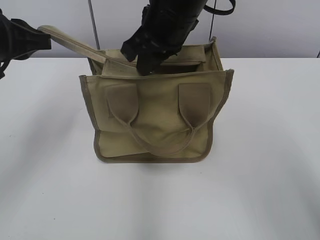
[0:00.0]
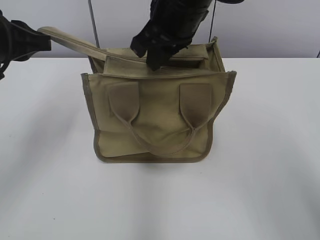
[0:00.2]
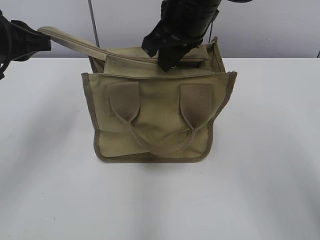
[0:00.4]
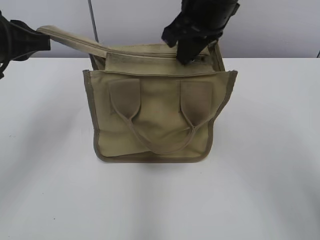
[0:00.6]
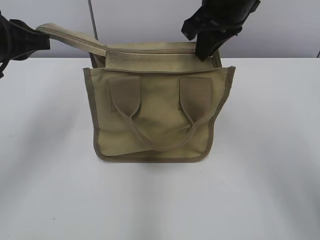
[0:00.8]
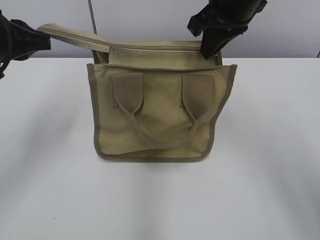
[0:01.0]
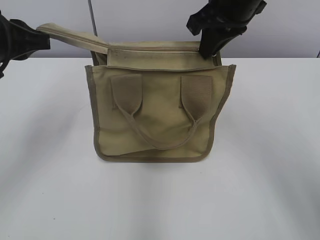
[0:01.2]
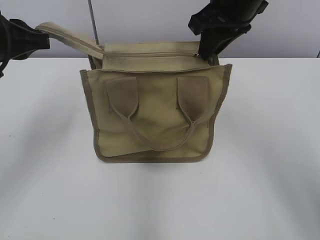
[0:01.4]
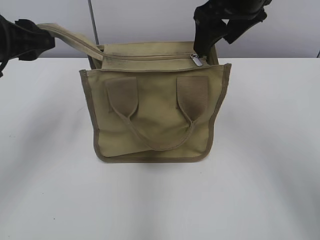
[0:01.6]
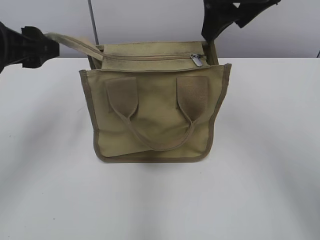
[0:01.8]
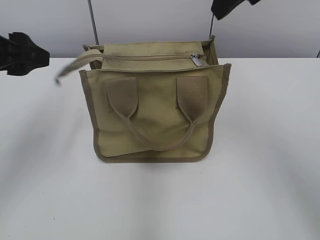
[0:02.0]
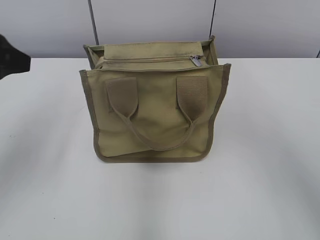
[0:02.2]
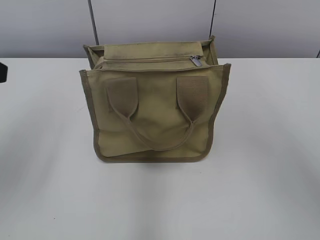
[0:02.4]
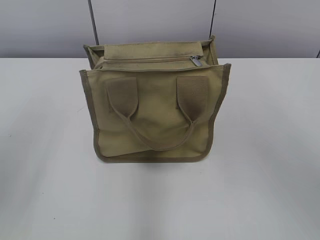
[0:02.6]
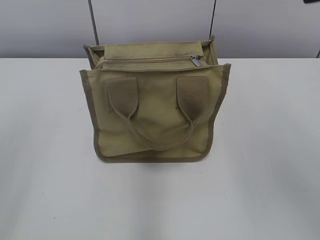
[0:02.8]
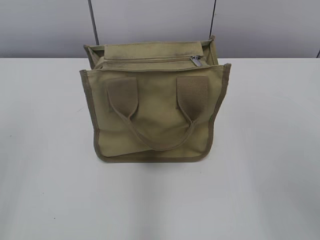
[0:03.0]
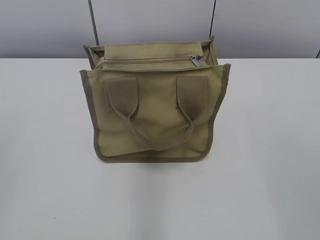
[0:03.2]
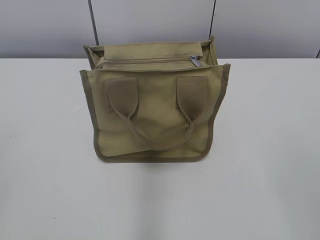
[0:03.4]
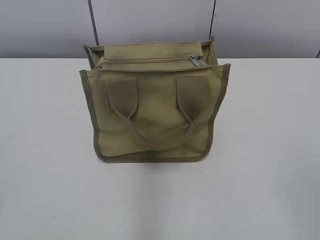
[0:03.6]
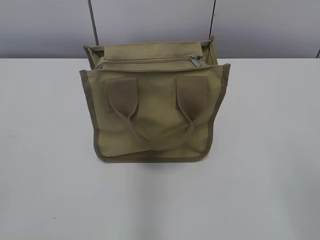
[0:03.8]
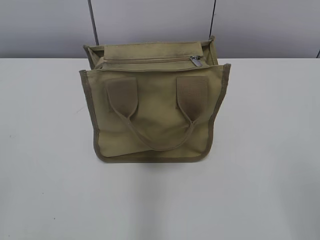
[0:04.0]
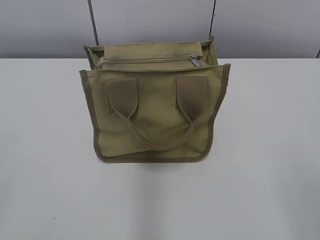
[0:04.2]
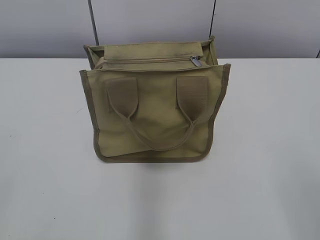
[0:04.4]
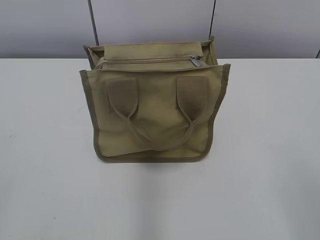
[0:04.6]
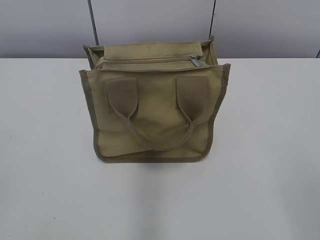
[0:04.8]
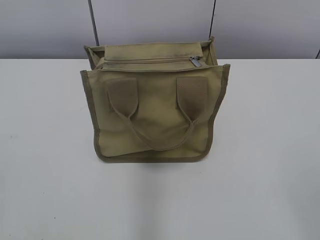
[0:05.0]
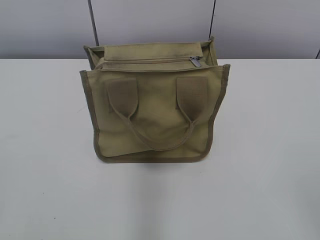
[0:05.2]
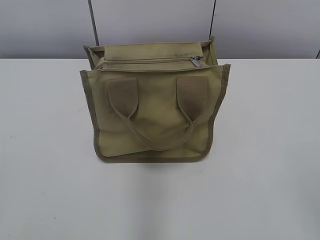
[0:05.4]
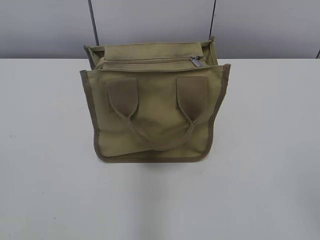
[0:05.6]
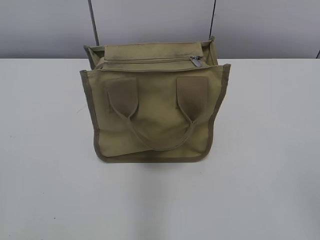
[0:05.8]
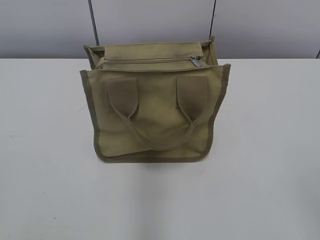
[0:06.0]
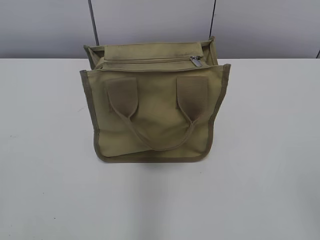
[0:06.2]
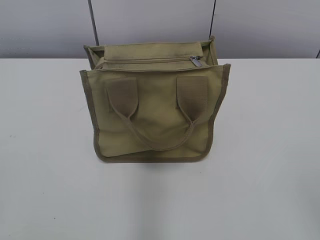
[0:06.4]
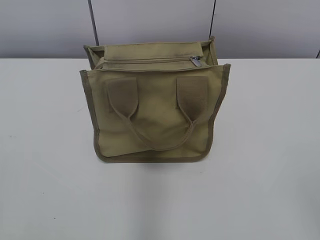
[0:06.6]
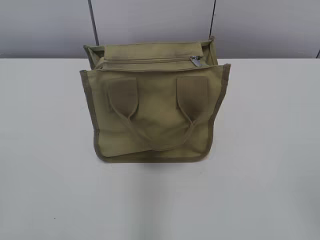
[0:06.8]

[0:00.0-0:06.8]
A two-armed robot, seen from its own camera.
Step, 0:01.6 to 0:01.8: Grab the zipper with your left hand.
0:00.0 to 0:01.4: The right gripper moves to the right, about 10 cm.
0:01.4 to 0:02.8: The right gripper travels backward, upward and to the right by approximately 25 cm, and opens, while the left gripper shifts approximately 15 cm backward, and opens.
0:05.4 to 0:06.8: Both grippers stay about where they are.

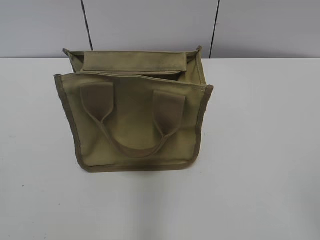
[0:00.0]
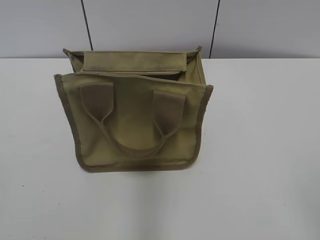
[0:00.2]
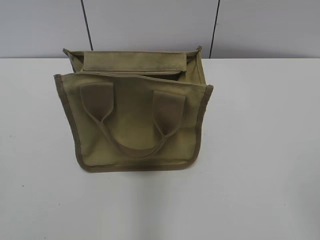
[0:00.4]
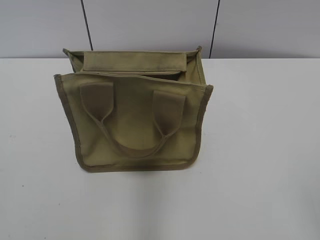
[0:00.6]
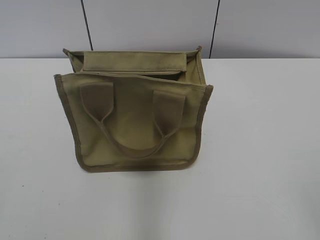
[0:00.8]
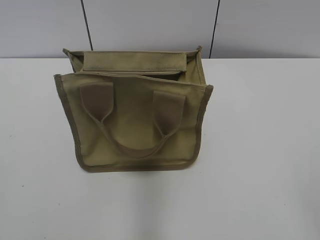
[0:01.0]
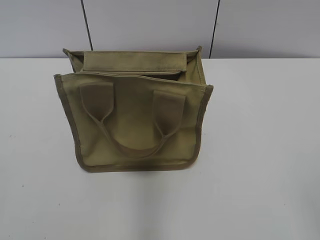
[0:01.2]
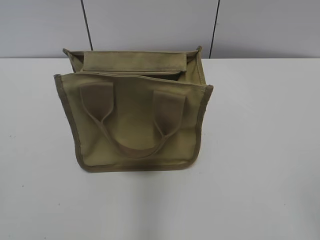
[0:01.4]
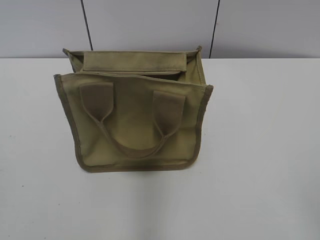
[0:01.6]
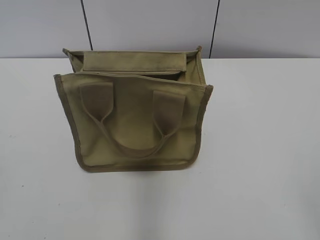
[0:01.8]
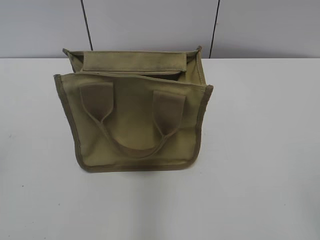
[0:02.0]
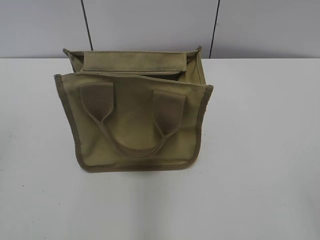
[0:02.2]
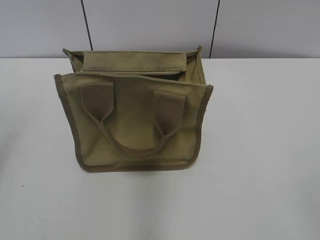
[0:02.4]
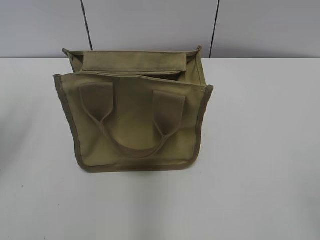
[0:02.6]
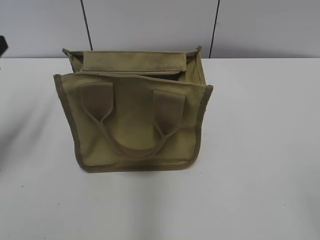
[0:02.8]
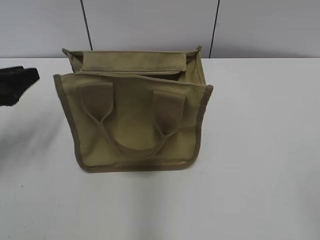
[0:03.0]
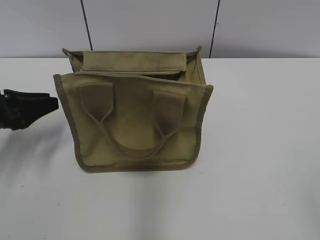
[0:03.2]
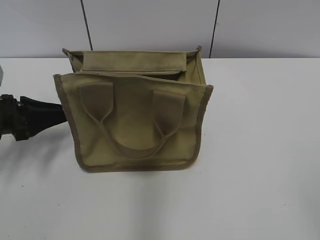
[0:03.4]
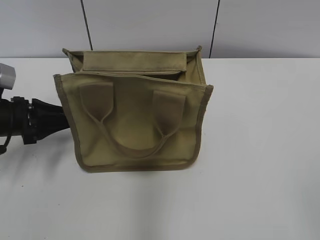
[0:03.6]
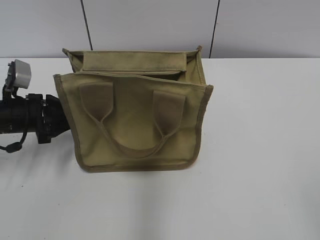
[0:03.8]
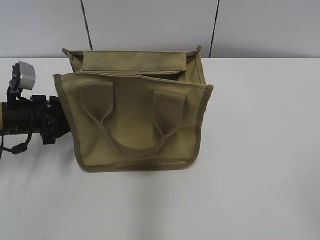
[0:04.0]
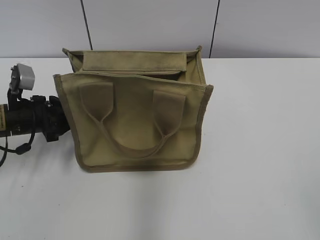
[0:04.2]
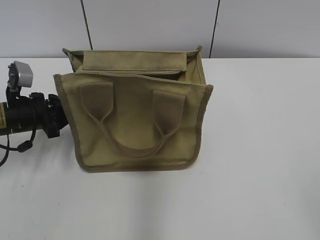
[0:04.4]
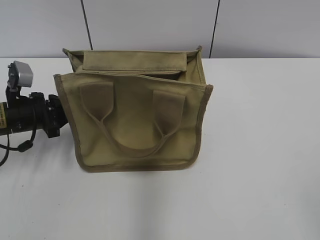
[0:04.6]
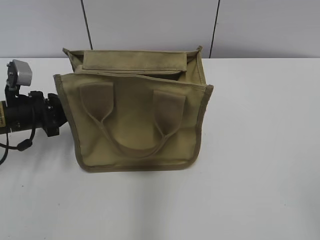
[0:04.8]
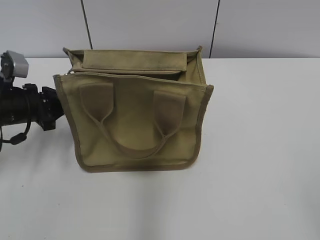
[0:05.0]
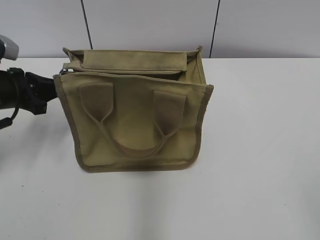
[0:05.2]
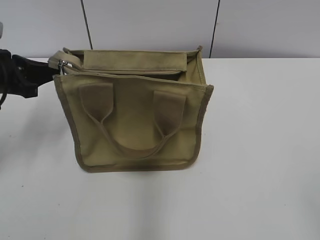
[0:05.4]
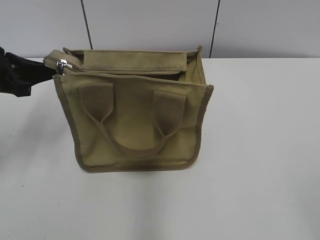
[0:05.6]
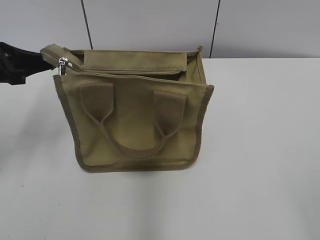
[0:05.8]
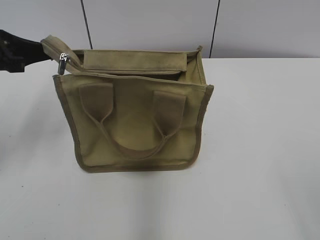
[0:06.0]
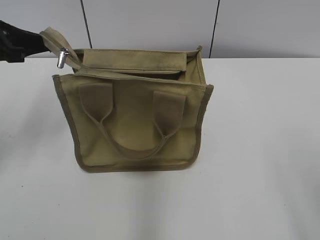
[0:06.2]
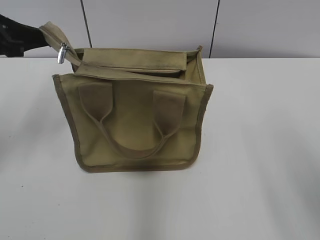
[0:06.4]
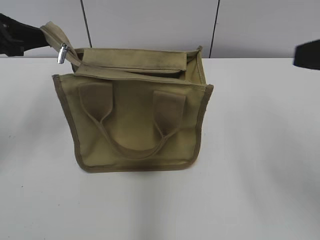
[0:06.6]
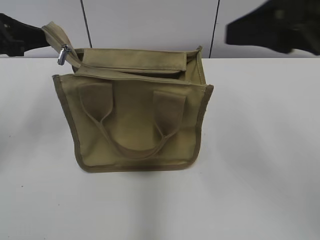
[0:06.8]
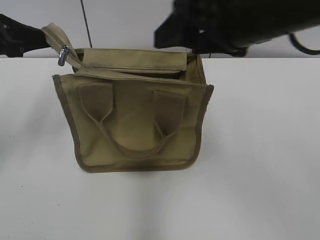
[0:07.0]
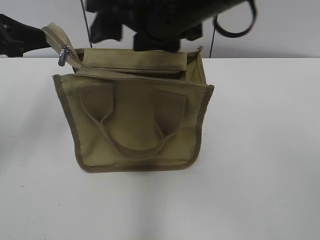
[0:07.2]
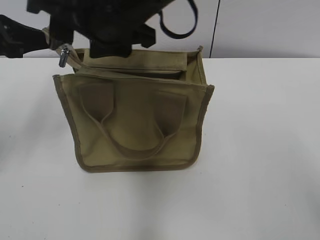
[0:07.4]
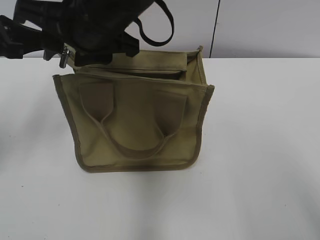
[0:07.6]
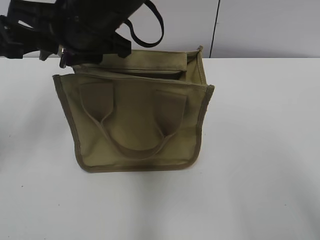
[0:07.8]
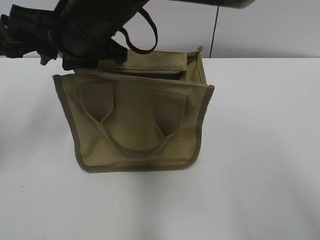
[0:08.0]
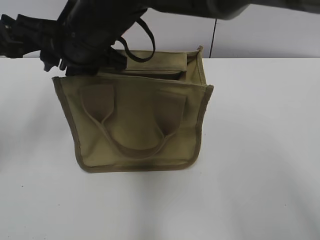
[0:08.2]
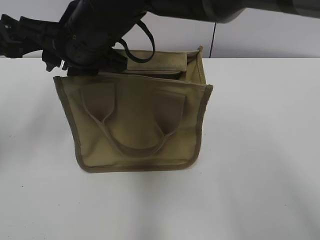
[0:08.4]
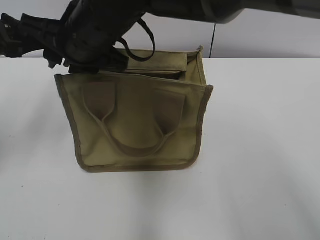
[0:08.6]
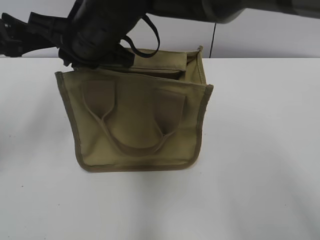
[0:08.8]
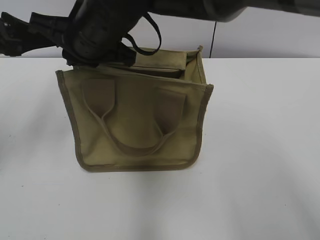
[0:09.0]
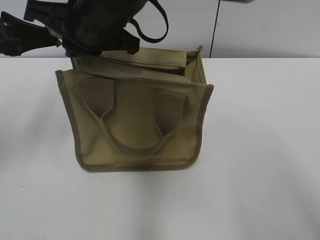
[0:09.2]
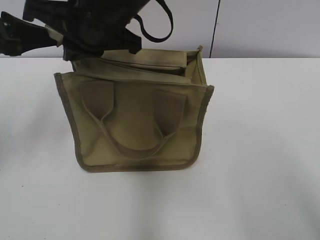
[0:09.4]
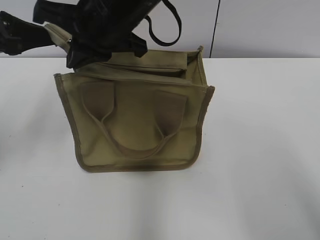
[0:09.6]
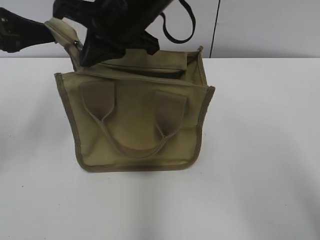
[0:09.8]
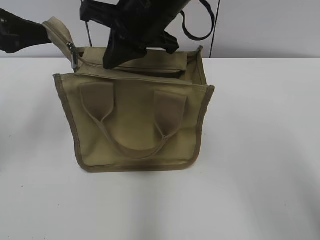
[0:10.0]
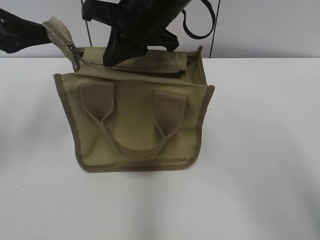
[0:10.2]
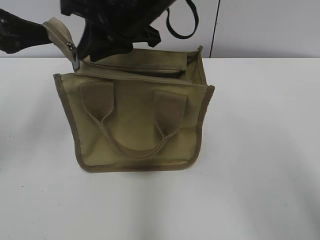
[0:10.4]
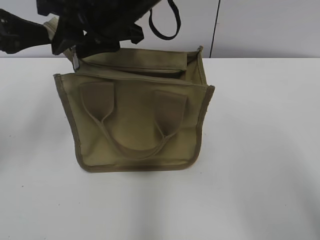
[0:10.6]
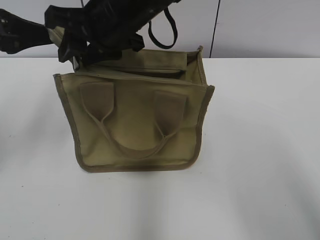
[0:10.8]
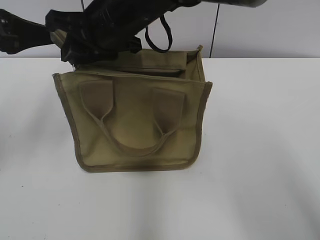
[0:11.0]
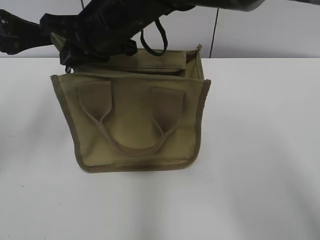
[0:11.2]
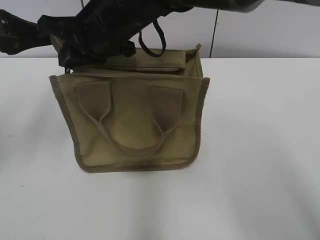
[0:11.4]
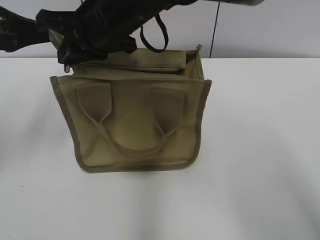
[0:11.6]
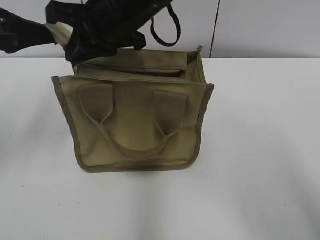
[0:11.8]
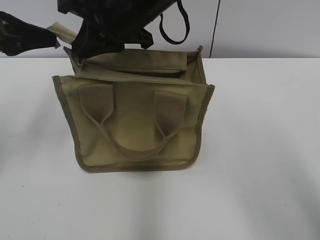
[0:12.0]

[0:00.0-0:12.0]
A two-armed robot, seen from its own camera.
0:01.6 to 0:03.0: The left gripper is displaced forward by about 30 cm.
0:03.0 to 0:04.4: The left gripper goes about 10 cm downward and forward, and closes its fingers.
0:04.4 to 0:06.0: The left gripper heads upward, covering about 15 cm.
0:06.0 to 0:07.6: The right gripper moves to the left and forward, approximately 40 cm, and closes.
0:07.6 to 0:09.0: The right gripper closes.
0:09.0 to 0:10.4: The right gripper shifts some 5 cm to the right.
0:10.4 to 0:12.0: The right gripper opens and closes again.

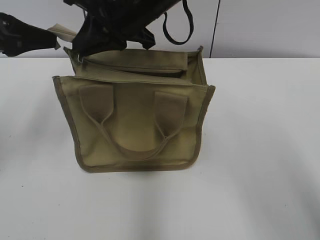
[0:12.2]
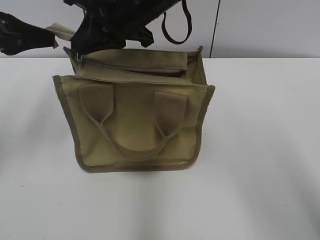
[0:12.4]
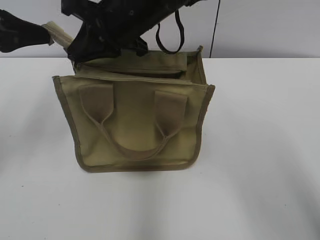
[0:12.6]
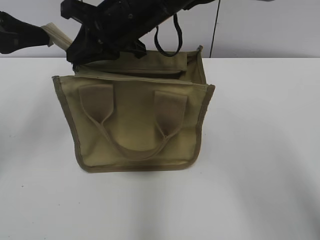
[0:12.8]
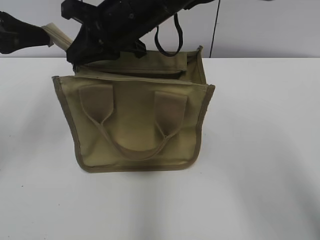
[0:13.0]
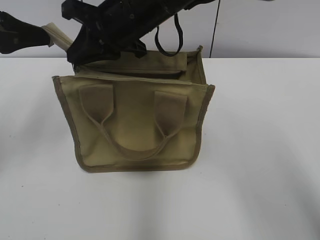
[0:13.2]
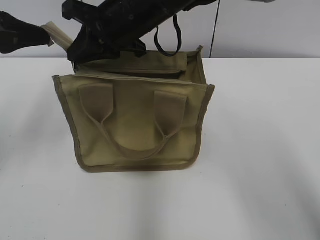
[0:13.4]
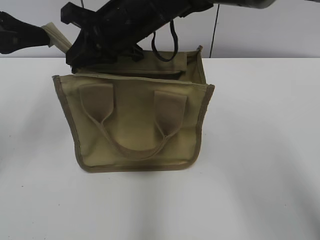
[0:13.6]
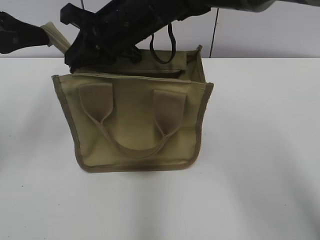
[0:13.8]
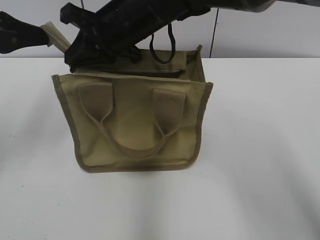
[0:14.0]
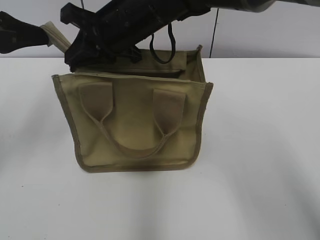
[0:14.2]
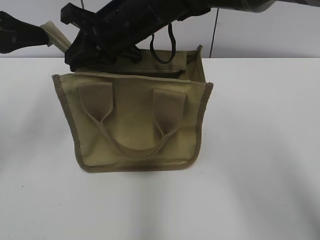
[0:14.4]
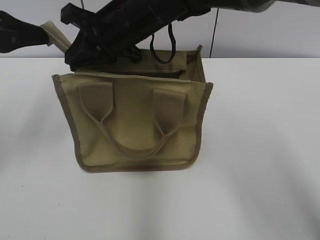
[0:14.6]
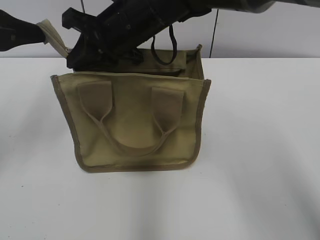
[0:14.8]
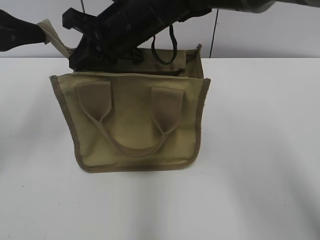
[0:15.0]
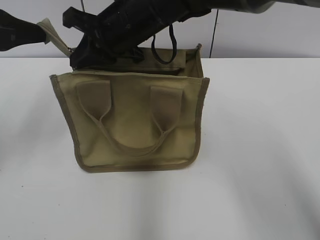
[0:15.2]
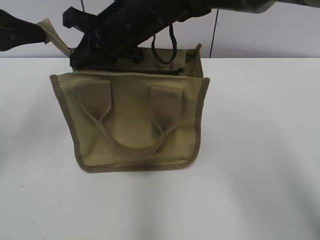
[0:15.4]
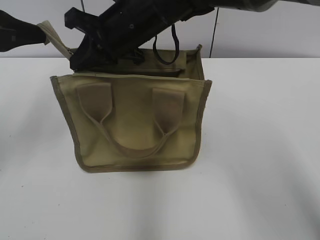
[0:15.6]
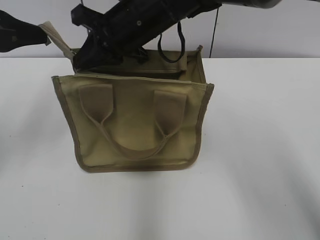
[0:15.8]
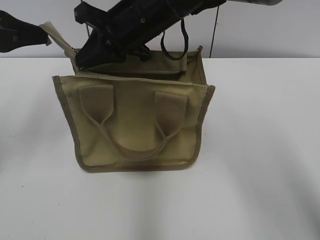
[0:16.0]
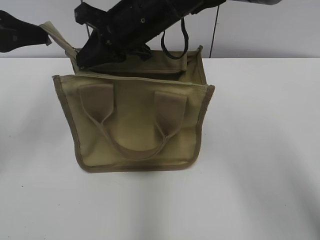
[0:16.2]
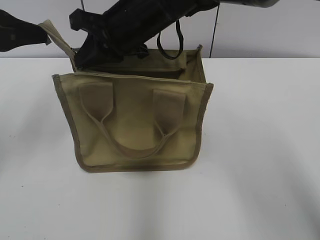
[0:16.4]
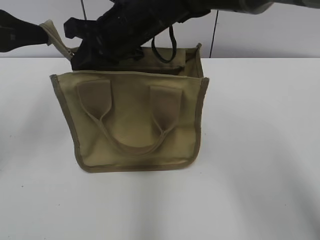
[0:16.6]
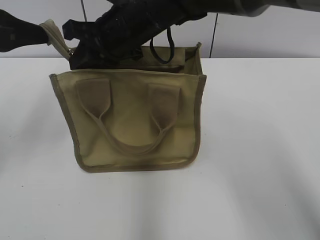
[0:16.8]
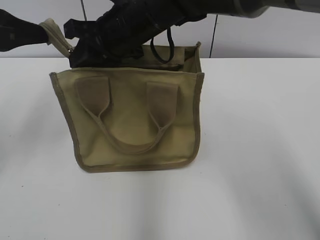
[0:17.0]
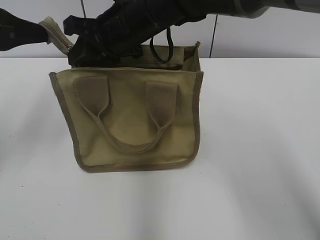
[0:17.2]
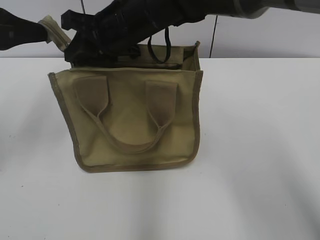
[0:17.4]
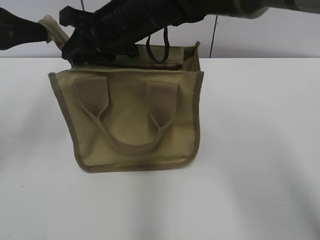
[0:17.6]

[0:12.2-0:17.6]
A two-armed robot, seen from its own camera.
0:12.2 to 0:13.6: The grippers move only a little.
0:13.6 to 0:15.0: Both grippers stay about where they are.
0:15.0 to 0:17.6: The grippers stay close to where they were, moving slightly.
